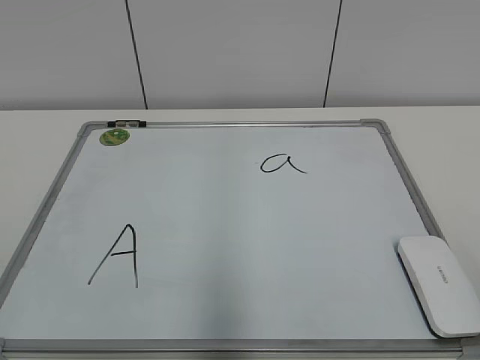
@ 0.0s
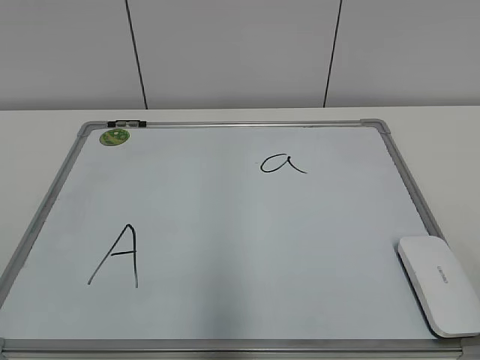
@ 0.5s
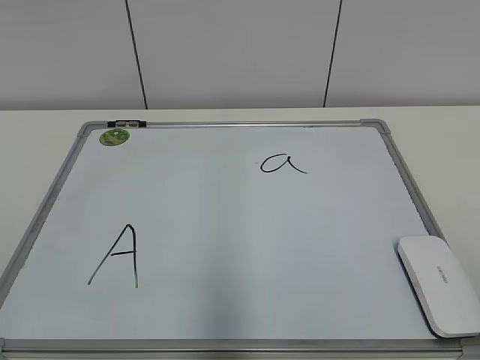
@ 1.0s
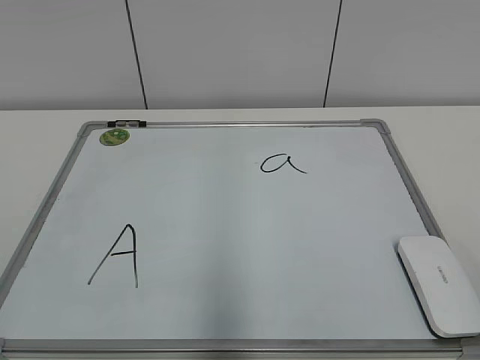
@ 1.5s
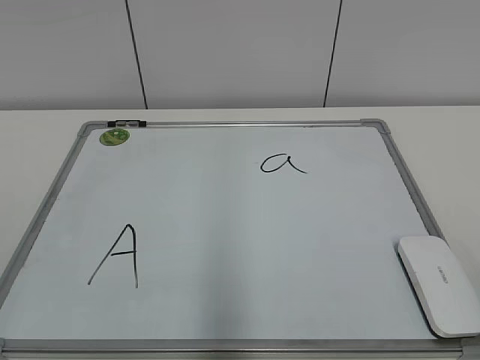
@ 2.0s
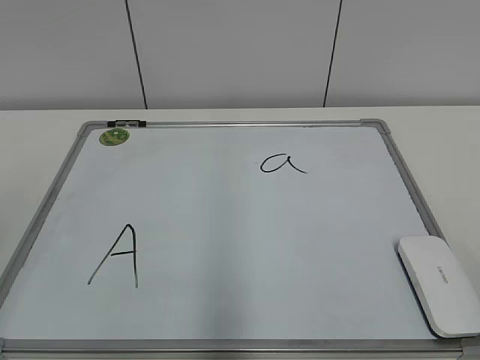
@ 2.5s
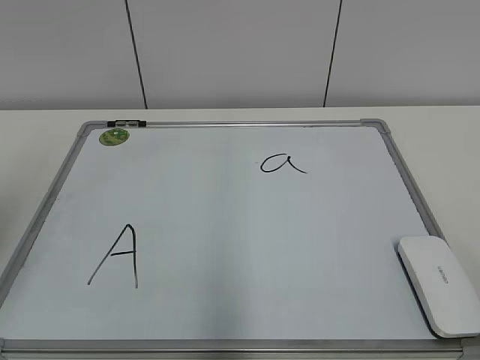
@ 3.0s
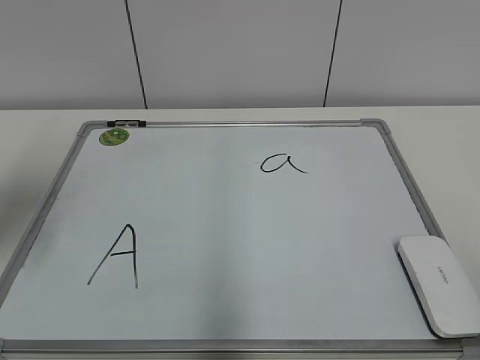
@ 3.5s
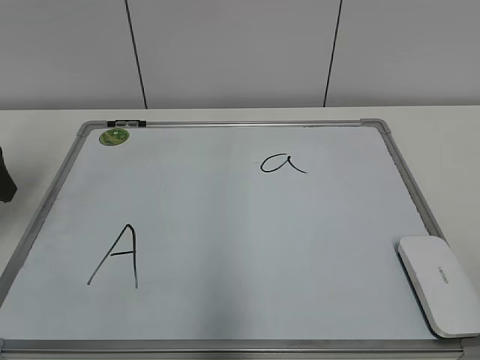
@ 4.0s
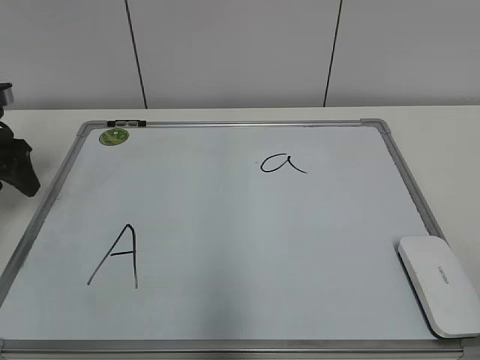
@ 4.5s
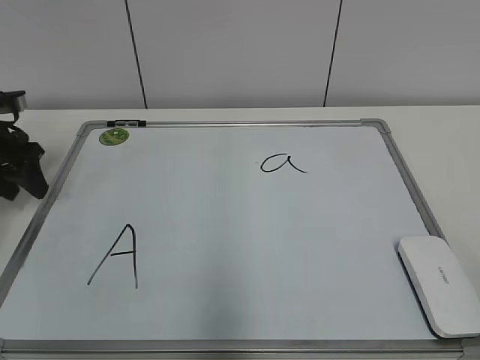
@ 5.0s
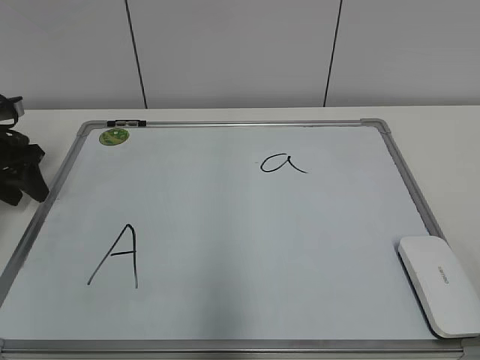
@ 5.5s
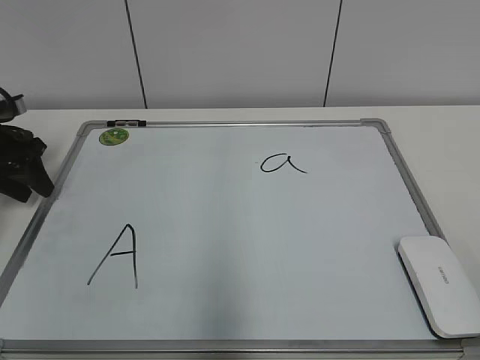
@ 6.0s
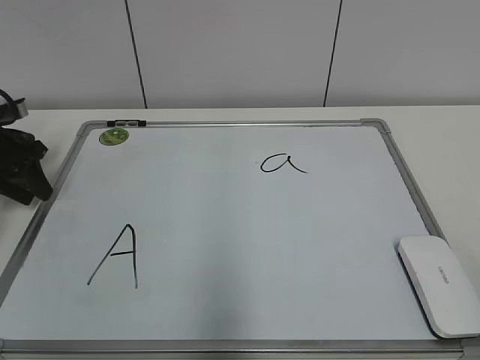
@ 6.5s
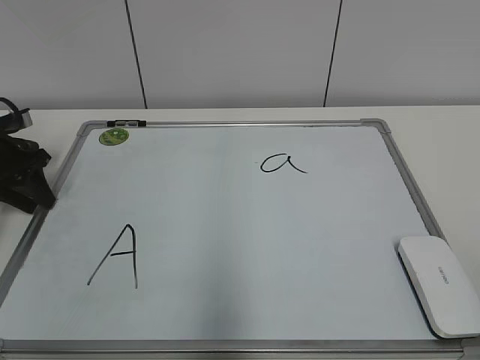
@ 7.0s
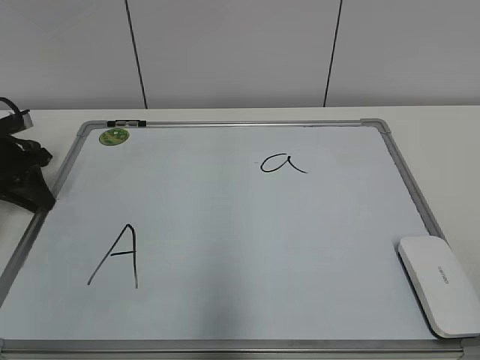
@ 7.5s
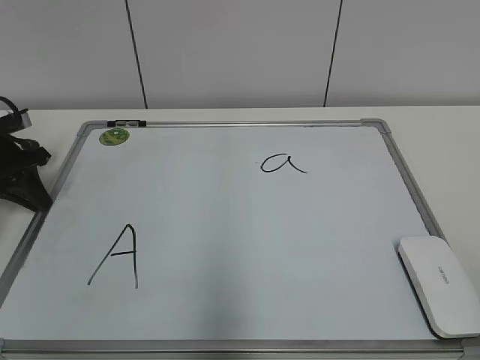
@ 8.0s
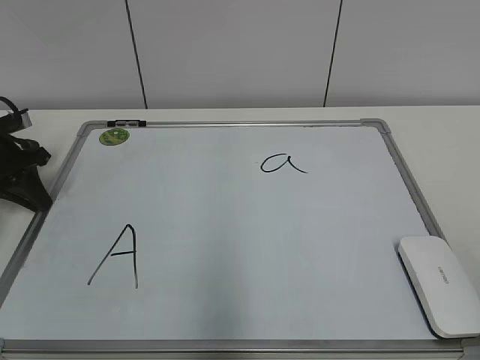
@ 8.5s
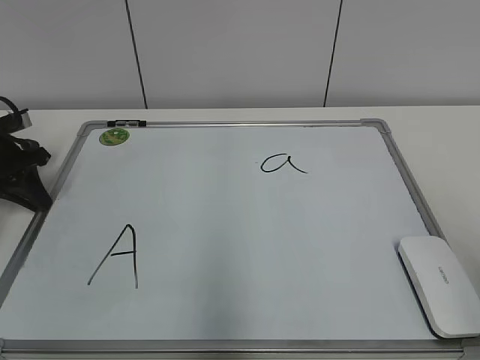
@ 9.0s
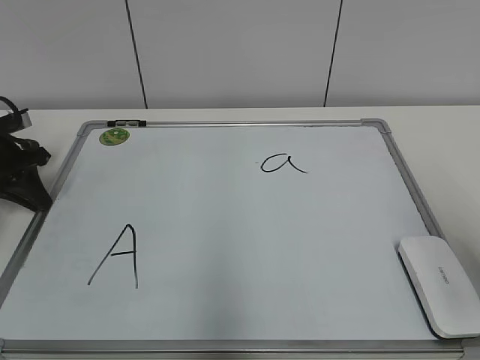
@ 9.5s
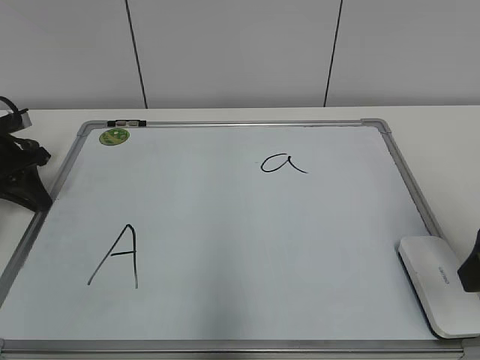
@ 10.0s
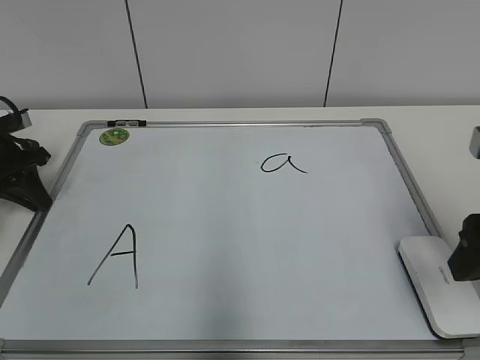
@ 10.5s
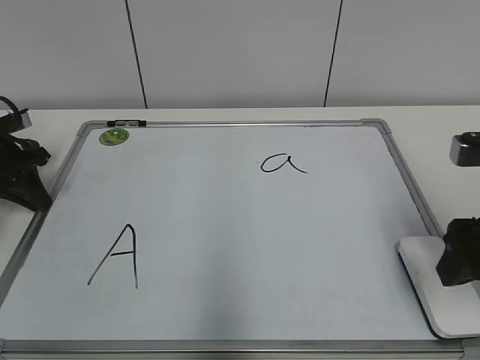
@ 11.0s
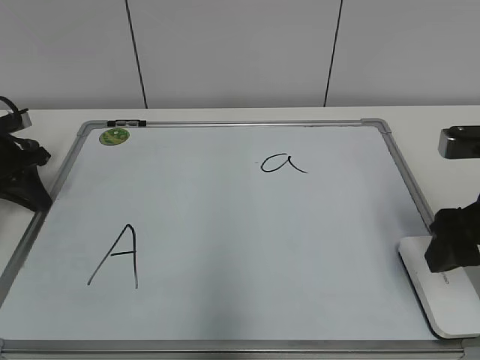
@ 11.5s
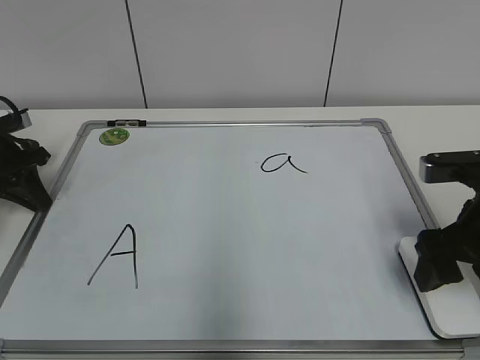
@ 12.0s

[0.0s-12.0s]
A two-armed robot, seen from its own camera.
Task of the whole recording: pick up the eraser on the blackboard and erase the letter "a".
Step, 0.0s to 7.5s: Hold the drawing board steady with your left hand.
2.0s to 4.0s: The left gripper moves forward, approximately 35 cm.
4.0s to 6.0s: The left gripper moves forward and downward, approximately 10 cm, and closes its fingers.
6.0s to 8.0s: The left gripper closes up.
8.0s to 10.0s: The right gripper heads forward, covering about 20 cm.
10.0s to 12.0s: The right gripper goes roughly 10 cm forward and downward, and opens.

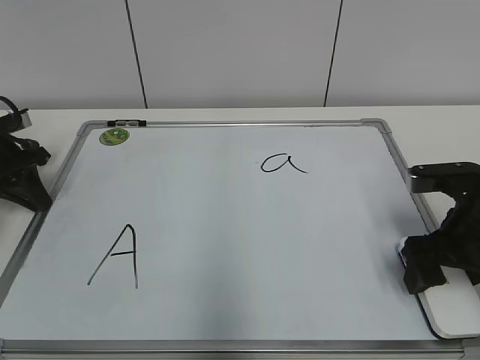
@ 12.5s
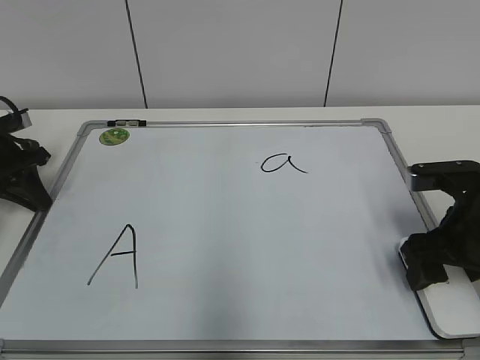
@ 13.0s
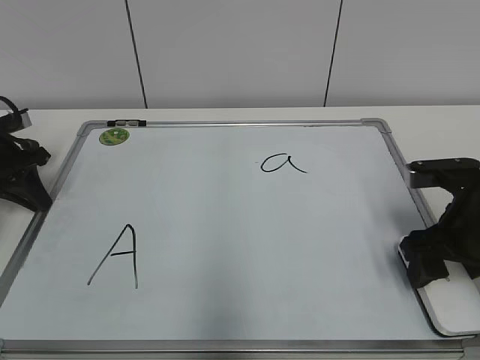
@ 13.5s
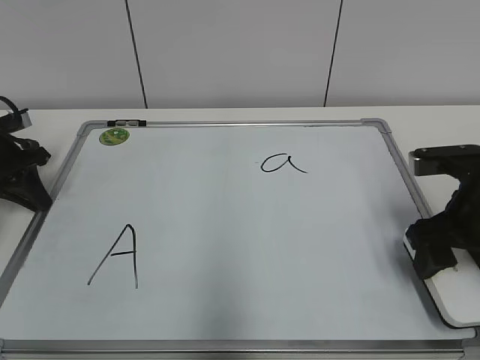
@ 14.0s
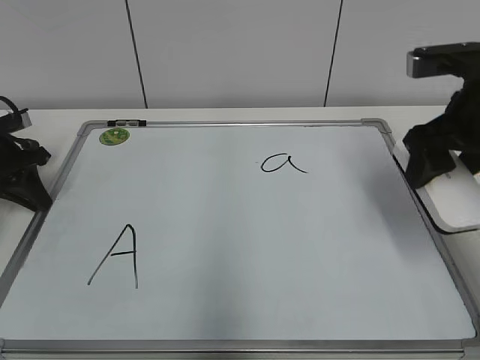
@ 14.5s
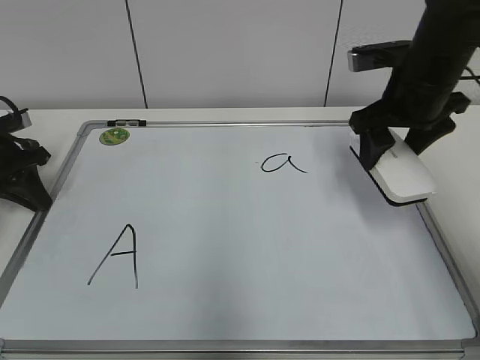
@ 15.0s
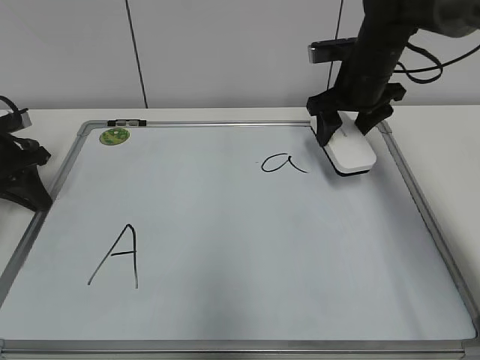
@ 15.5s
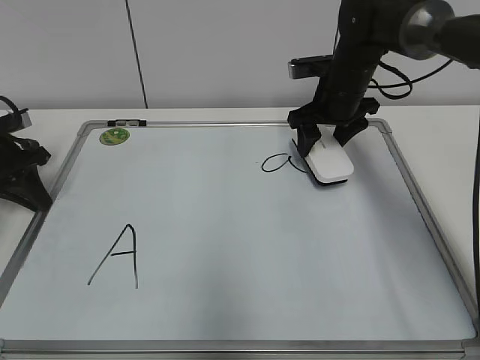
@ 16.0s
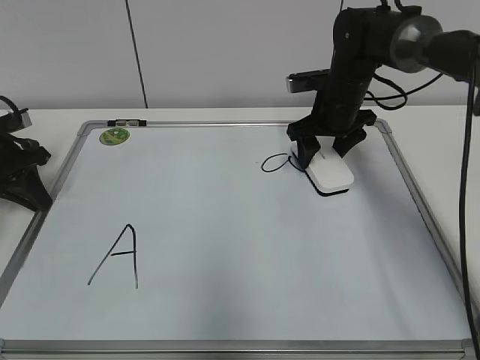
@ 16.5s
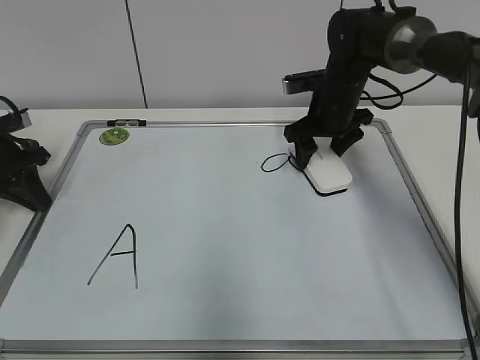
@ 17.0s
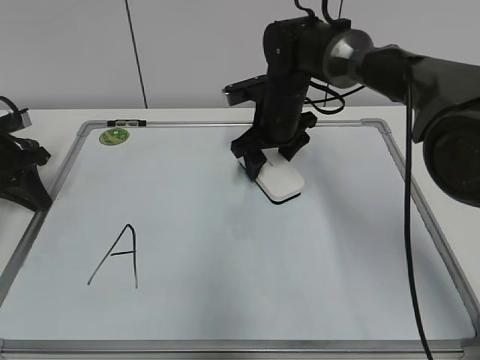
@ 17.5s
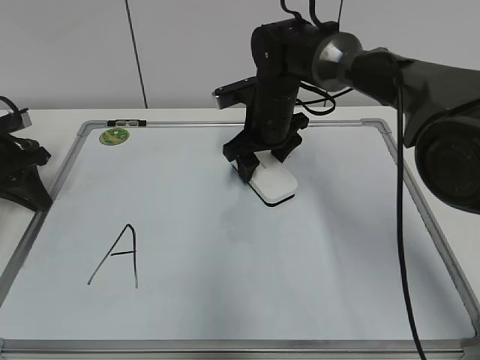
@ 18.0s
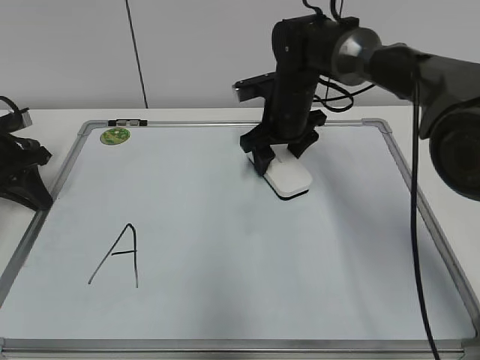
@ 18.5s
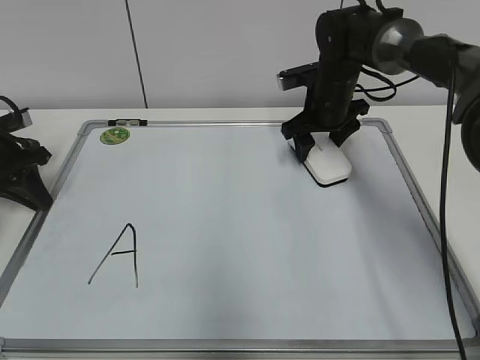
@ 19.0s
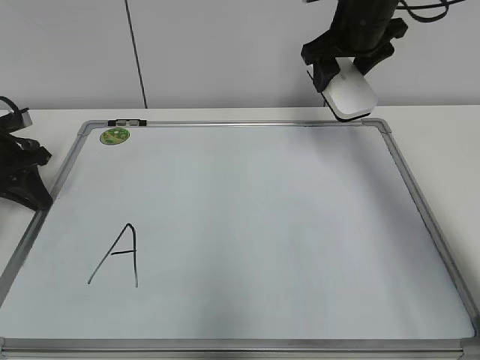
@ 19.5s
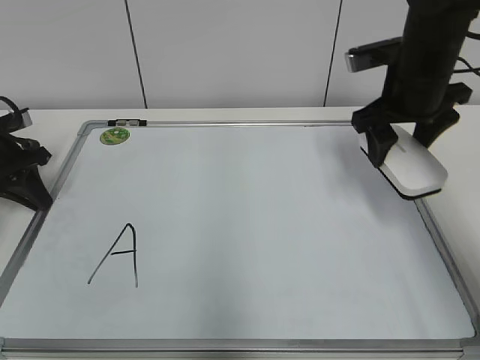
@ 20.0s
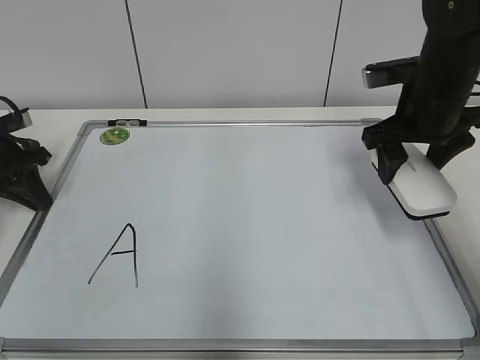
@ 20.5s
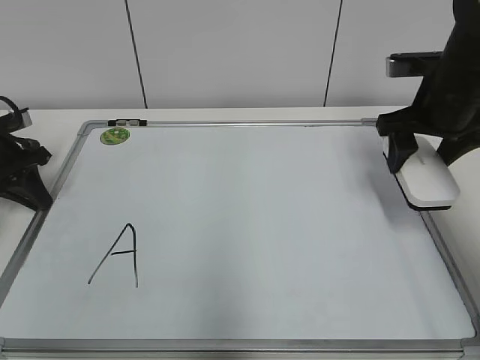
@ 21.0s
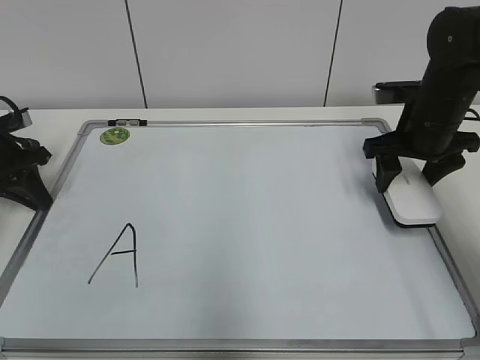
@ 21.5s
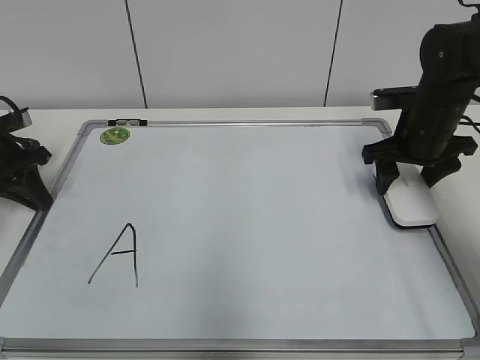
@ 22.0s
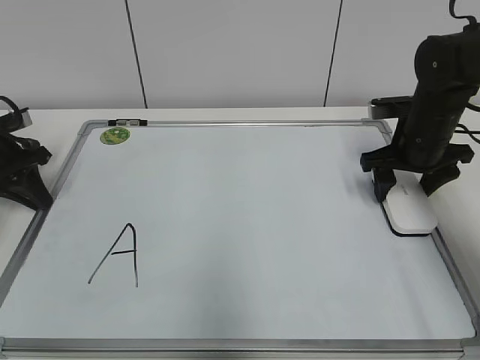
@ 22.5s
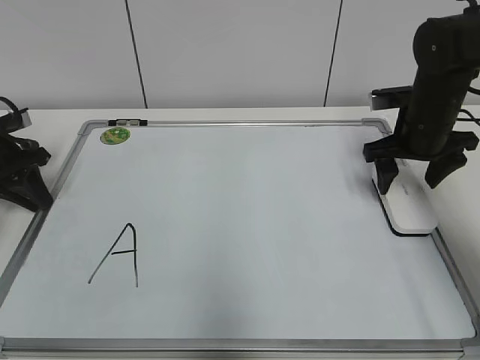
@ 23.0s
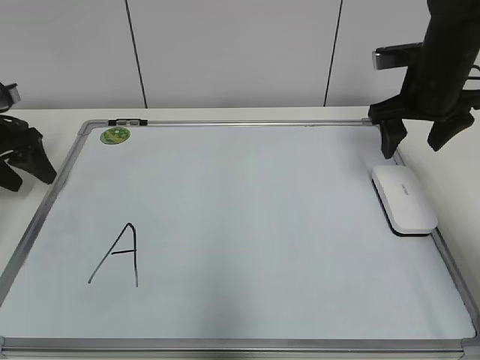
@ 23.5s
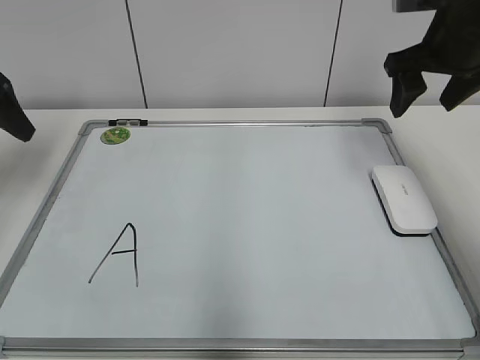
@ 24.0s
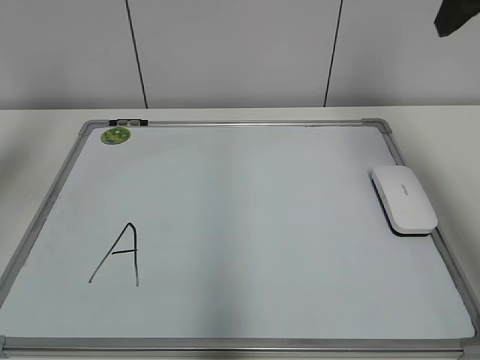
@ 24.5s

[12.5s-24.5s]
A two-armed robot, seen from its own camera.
Task of the whole recording: pick up the eraser on the blackboard and erase the letter "a".
Step, 13.5s to 18.5s: Erase the letter a with your right hand.
Step, 19.0s to 22.5s: Put down the eraser with your right hand.
12.5s to 14.5s: The right gripper shifts some 10 cm upward, and closes.
14.5s to 16.5s: The right gripper heads forward, downward and to the left, covering about 20 cm.
16.5s to 18.5s: The right gripper is displaced to the left by about 5 cm.
18.5s to 20.5s: The right gripper goes about 20 cm to the right, backward and upward.
20.5s to 22.5s: The right gripper heads downward, covering about 5 cm, and opens its fingers.
22.5s to 24.5s: The right gripper is displaced upward by some 25 cm; the left gripper moves upward and backward, approximately 30 cm, and opens.

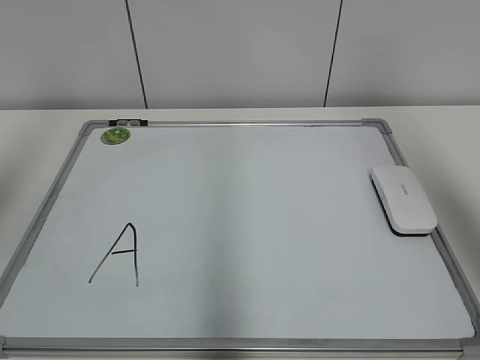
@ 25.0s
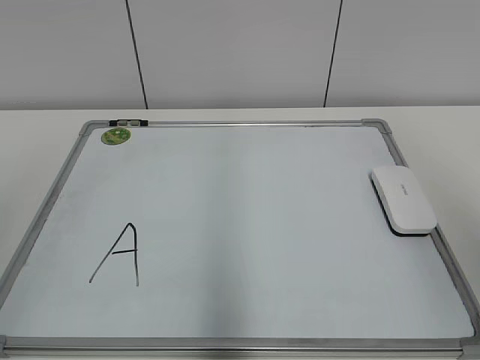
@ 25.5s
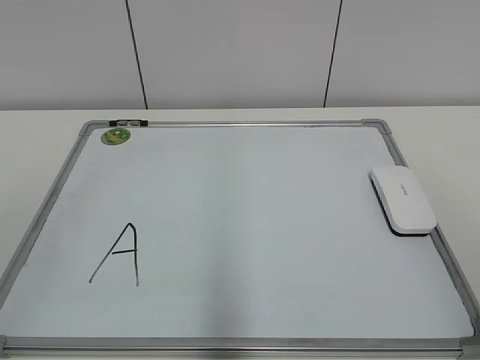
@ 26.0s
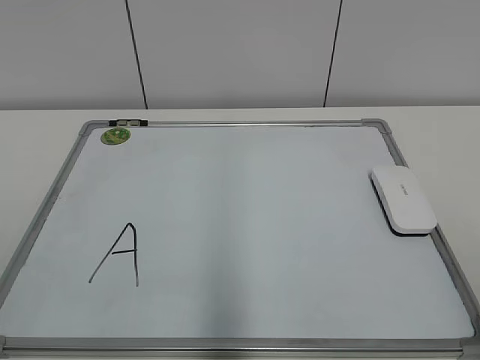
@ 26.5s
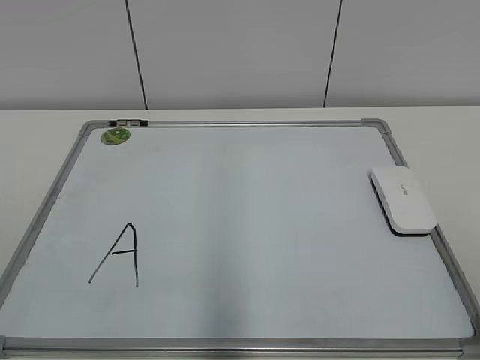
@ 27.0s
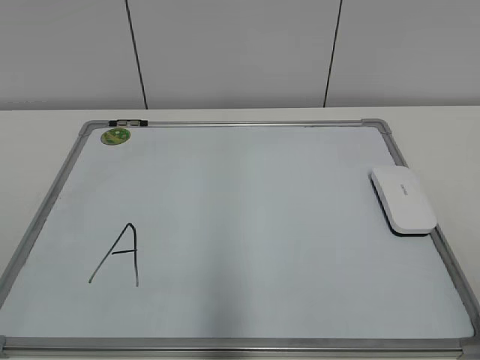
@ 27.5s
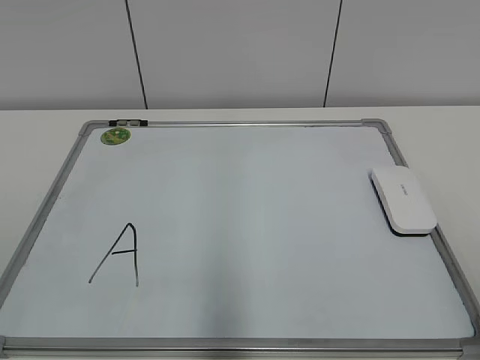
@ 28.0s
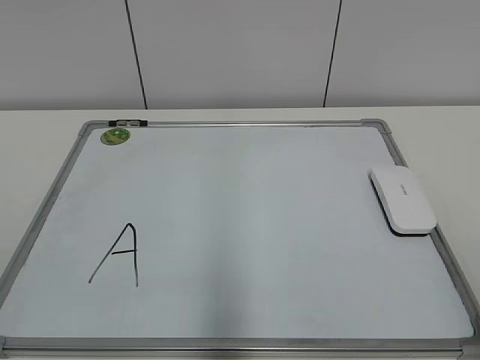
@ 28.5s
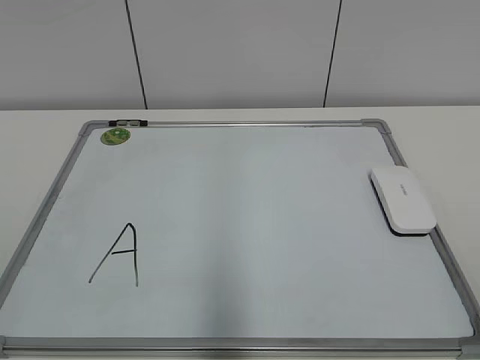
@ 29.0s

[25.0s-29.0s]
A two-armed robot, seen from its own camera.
Task of the whole recording: pick up the eraser on the blackboard and erase the letter "a".
25.0s to 27.0s: The right gripper shifts some 25 cm backward and downward.
